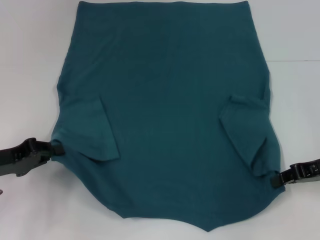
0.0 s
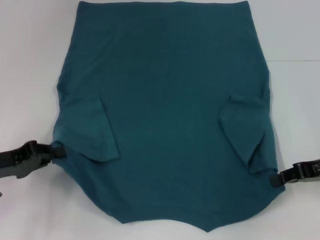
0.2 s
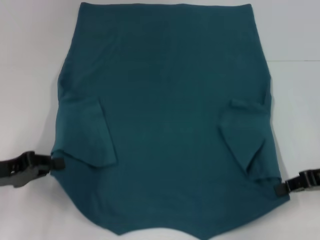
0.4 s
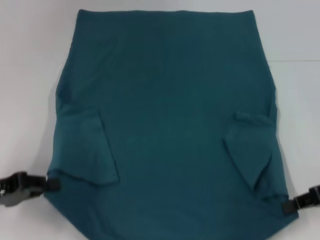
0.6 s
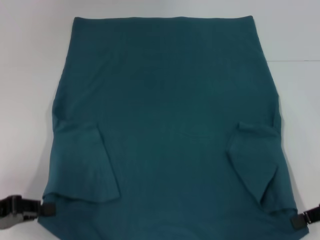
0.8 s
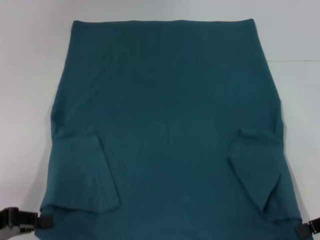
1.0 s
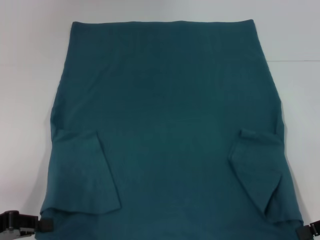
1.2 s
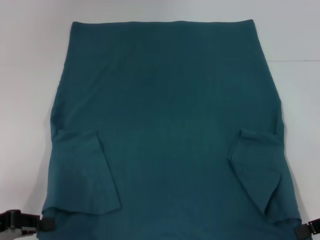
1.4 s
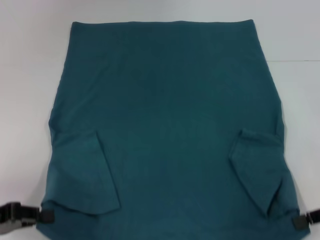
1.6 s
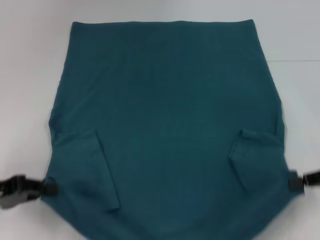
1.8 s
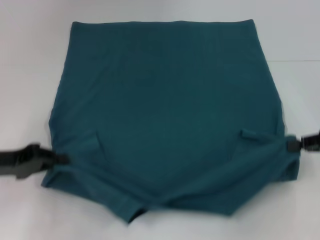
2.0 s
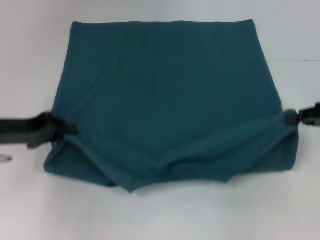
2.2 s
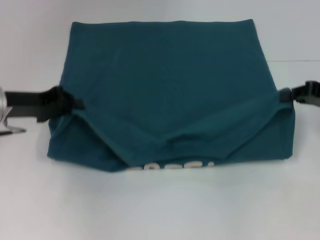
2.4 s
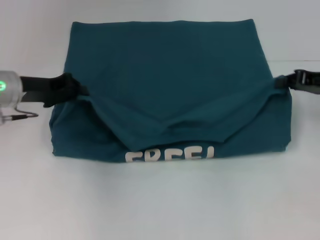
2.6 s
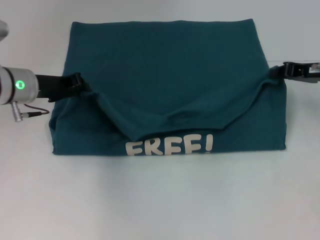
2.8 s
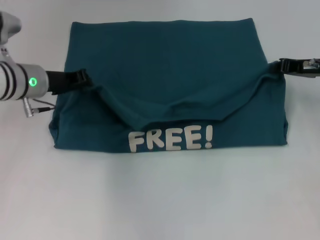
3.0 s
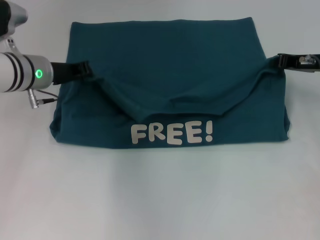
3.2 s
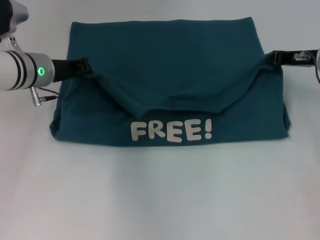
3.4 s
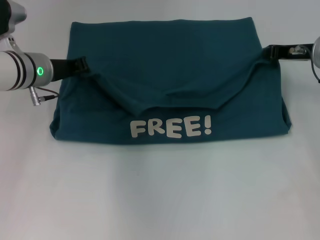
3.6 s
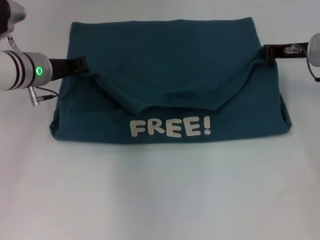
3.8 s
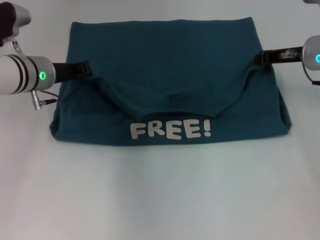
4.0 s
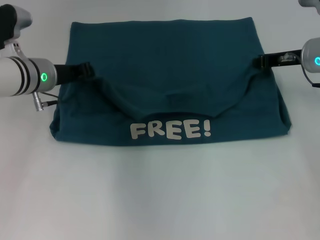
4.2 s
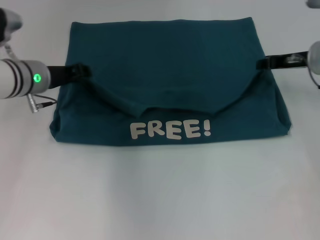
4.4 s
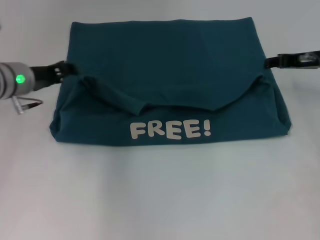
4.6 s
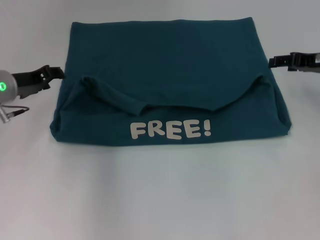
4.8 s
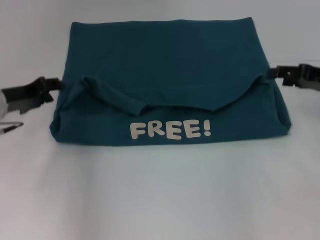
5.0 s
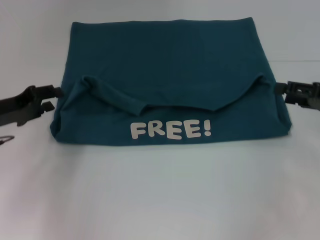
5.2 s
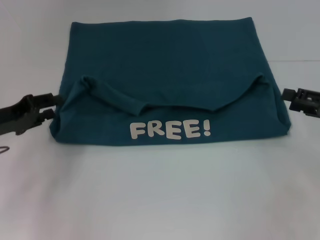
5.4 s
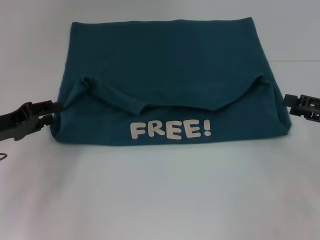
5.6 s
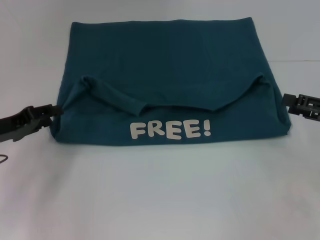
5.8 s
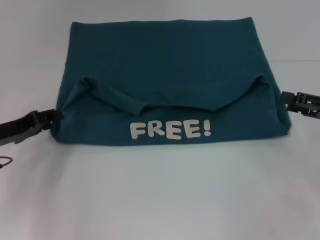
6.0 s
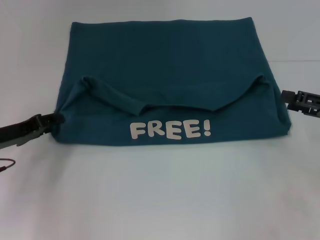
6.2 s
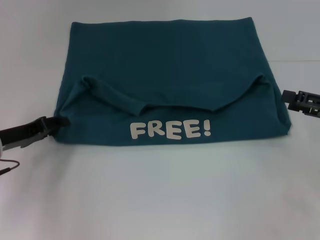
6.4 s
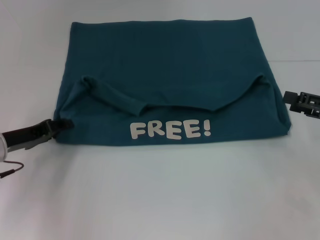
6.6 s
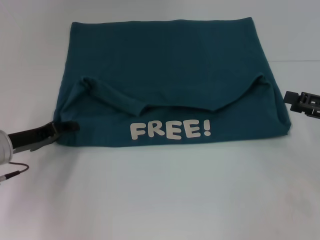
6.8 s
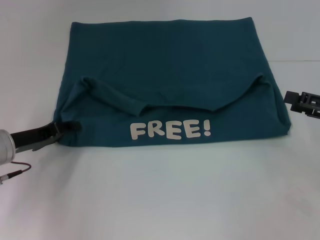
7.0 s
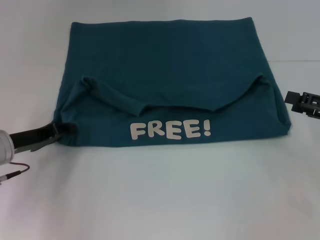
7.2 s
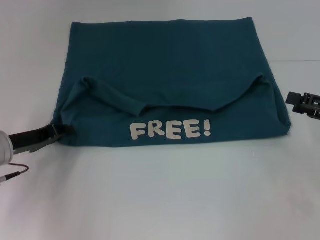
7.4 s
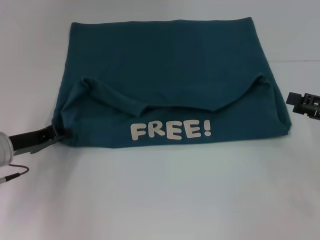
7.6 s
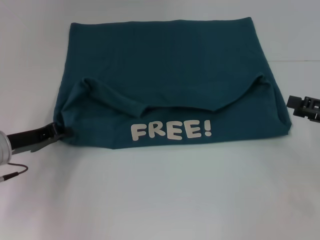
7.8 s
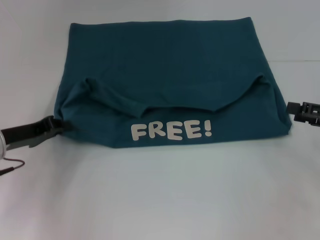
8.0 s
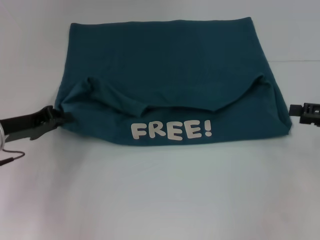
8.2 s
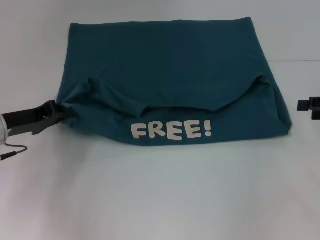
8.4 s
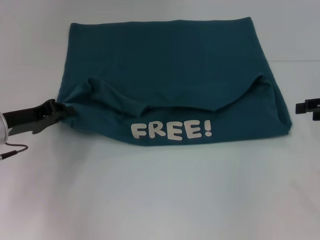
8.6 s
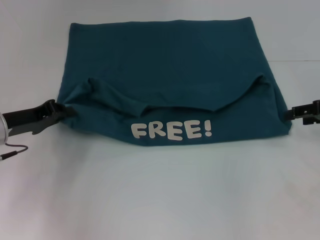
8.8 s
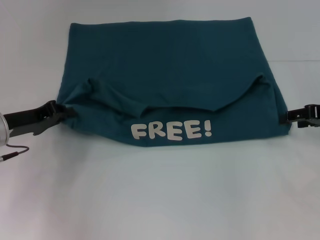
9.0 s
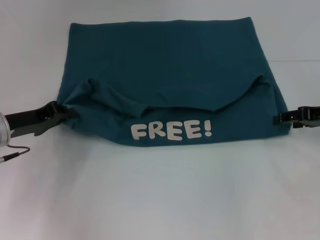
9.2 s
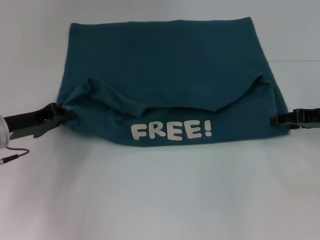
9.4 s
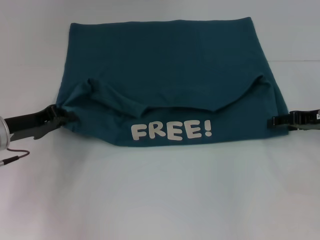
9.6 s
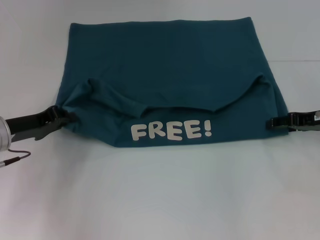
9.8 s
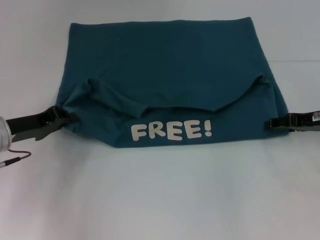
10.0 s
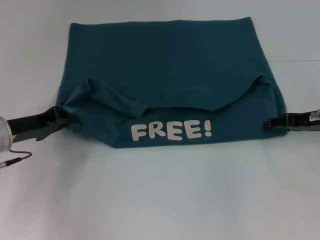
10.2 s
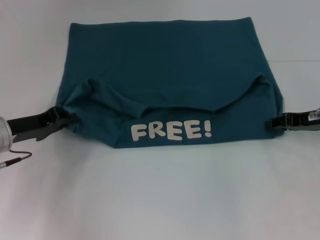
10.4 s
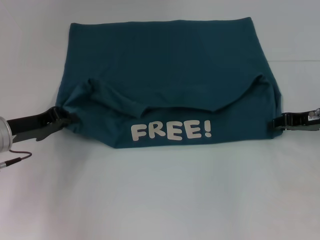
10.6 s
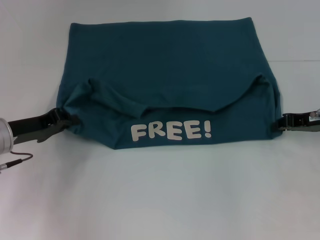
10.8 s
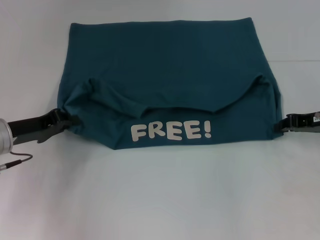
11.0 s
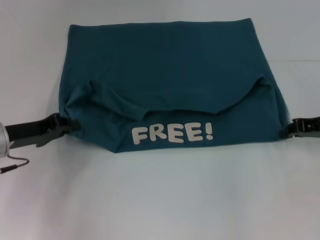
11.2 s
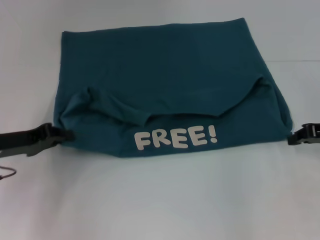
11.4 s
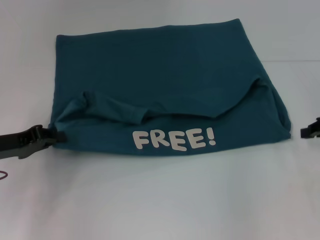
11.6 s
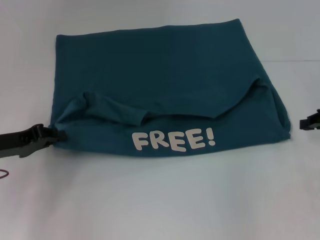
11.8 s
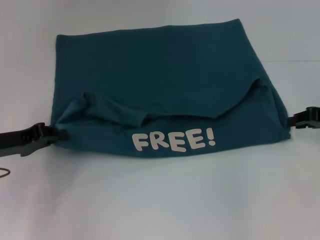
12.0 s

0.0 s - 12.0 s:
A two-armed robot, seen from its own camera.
Step, 0.2 s - 4.6 s: Fold the clothes to the left.
Step, 0.2 s - 4.6 s: Fold the clothes to the right.
0.0 s - 1.6 s: The grippers both shift backward by roughly 5 cm.
1.6 s - 3.0 s: The left gripper travels forward and to the right by about 25 cm, while the right gripper travels forward by roughly 15 cm.
3.0 s - 4.4 s: The grippers move only a little.
4.4 s - 6.0 s: The right gripper is displaced backward and to the right by approximately 15 cm, and opens up. Meanwhile the left gripper goes approximately 15 cm backward and to the left.
6.0 s - 7.6 s: The left gripper closes.
7.6 s - 9.0 s: The right gripper shifts approximately 5 cm forward.
9.0 s - 10.4 s: The grippers move only a little.
10.4 s - 12.0 s: The right gripper closes up.

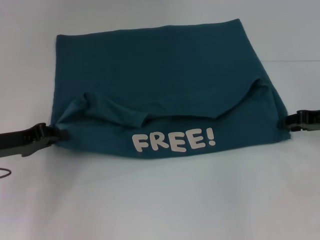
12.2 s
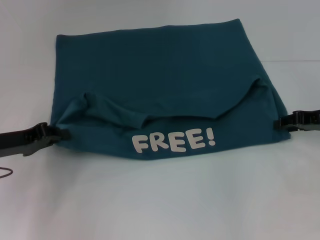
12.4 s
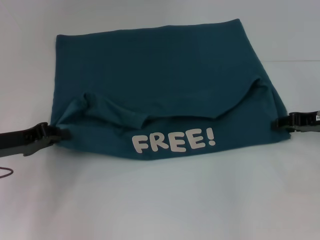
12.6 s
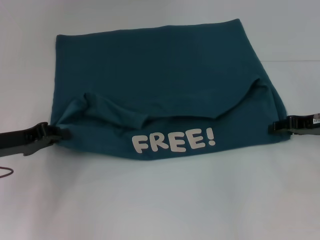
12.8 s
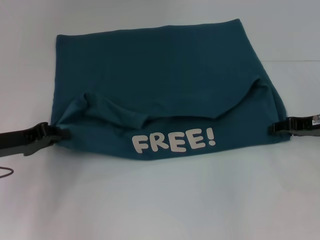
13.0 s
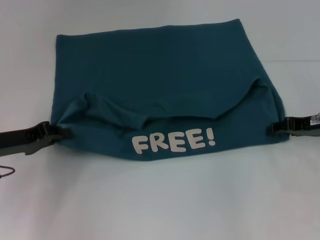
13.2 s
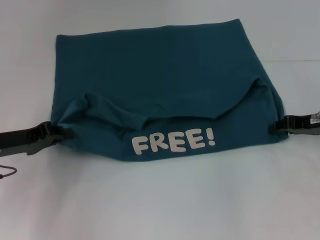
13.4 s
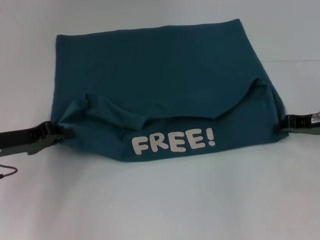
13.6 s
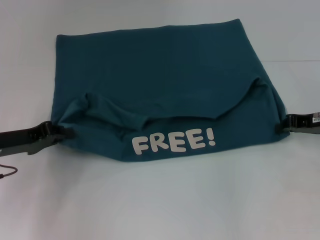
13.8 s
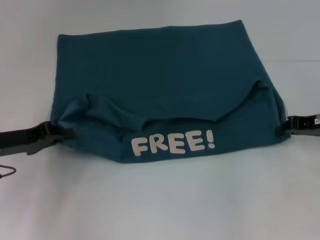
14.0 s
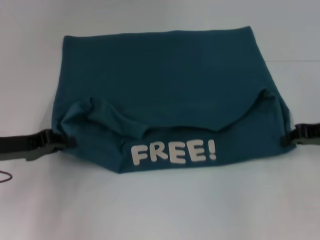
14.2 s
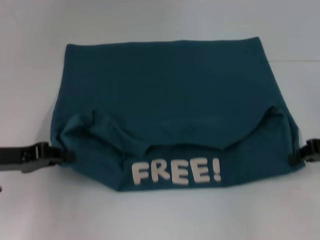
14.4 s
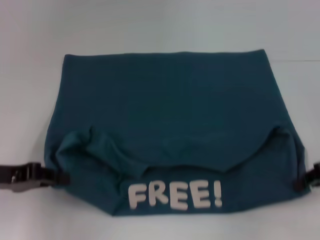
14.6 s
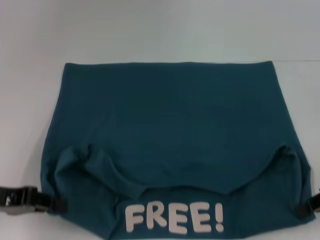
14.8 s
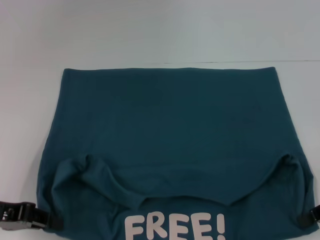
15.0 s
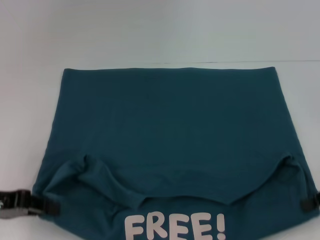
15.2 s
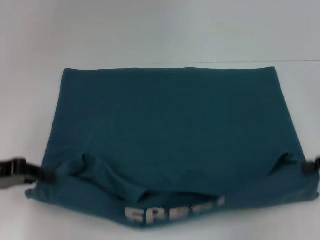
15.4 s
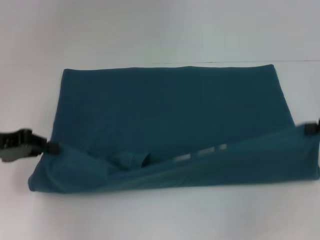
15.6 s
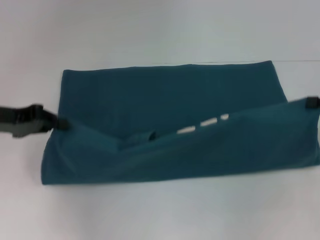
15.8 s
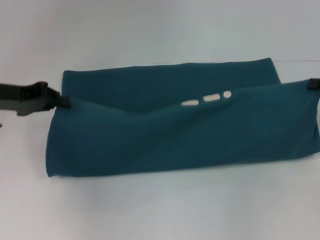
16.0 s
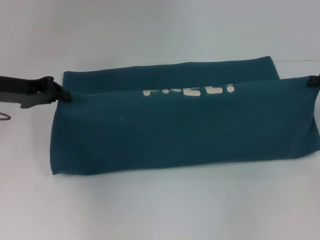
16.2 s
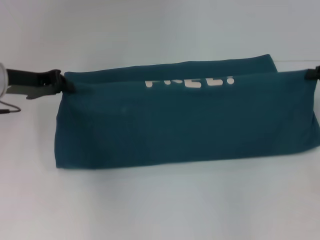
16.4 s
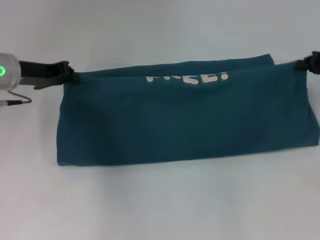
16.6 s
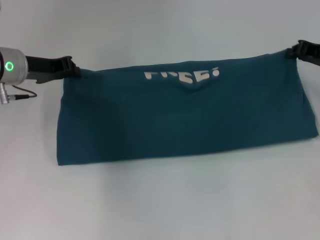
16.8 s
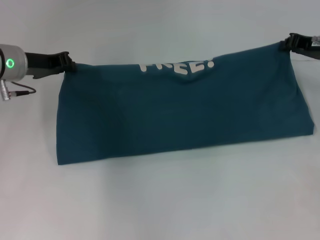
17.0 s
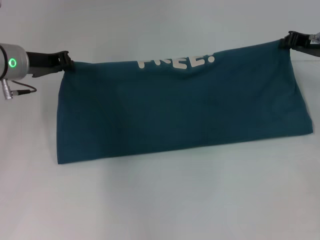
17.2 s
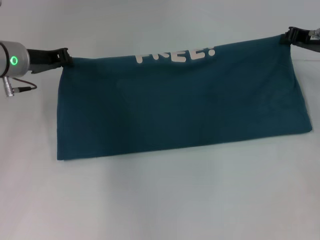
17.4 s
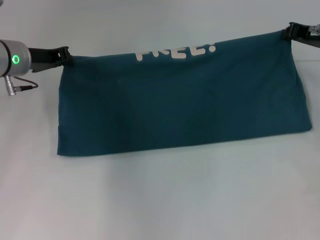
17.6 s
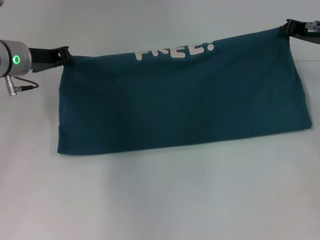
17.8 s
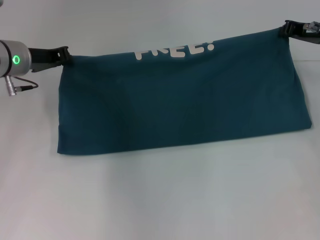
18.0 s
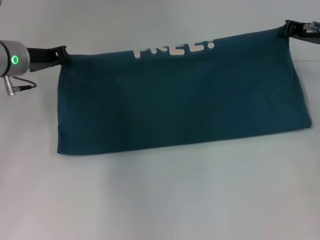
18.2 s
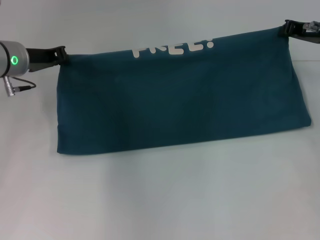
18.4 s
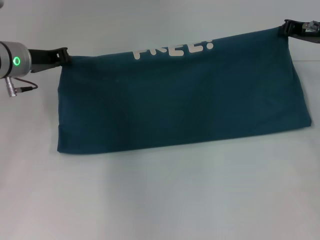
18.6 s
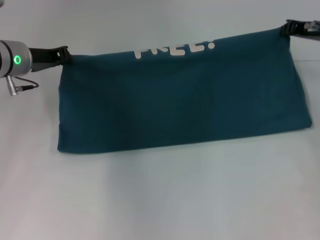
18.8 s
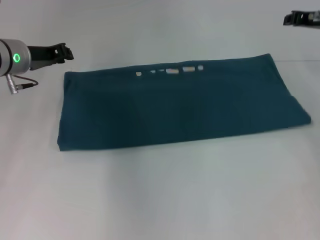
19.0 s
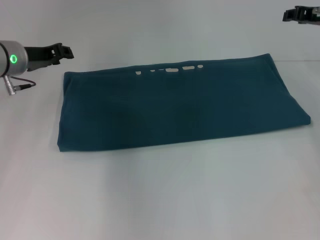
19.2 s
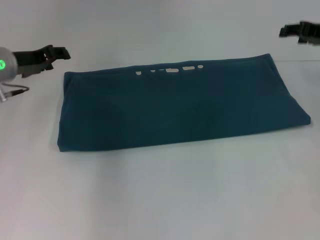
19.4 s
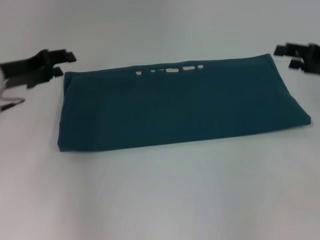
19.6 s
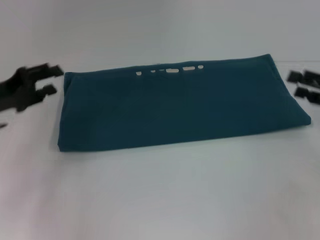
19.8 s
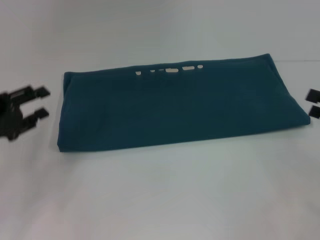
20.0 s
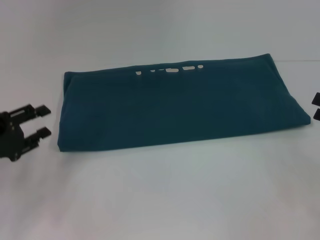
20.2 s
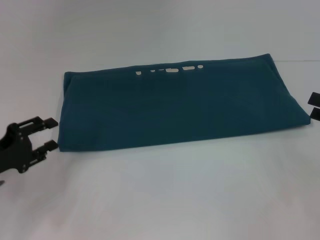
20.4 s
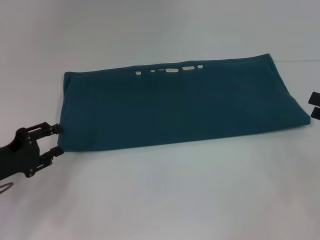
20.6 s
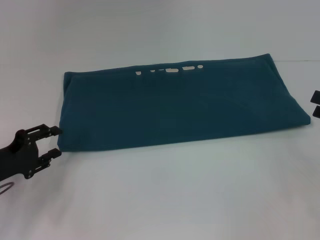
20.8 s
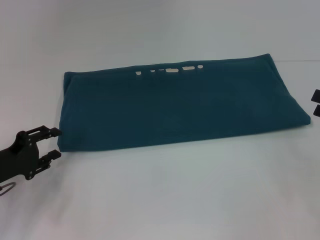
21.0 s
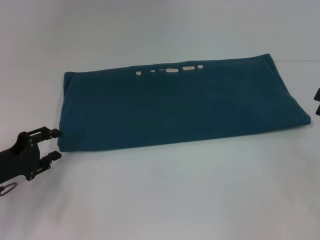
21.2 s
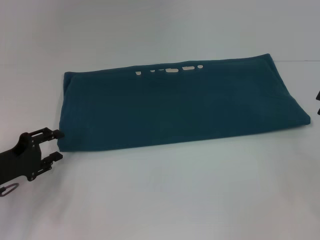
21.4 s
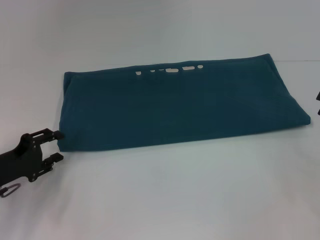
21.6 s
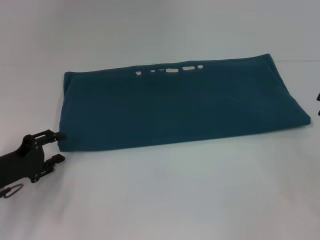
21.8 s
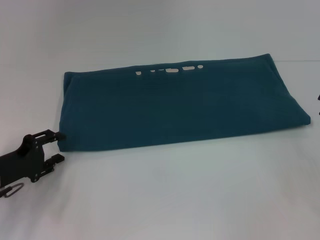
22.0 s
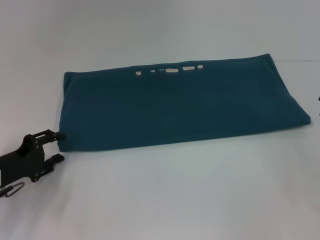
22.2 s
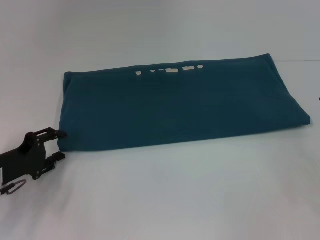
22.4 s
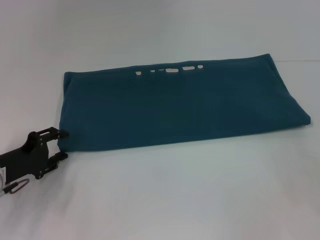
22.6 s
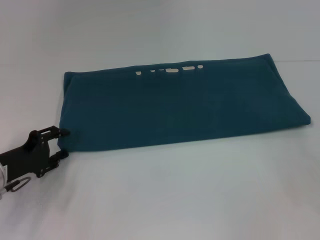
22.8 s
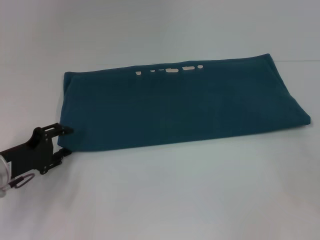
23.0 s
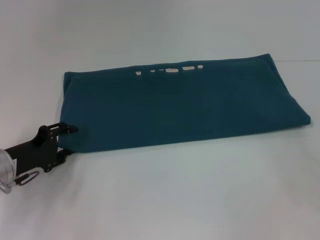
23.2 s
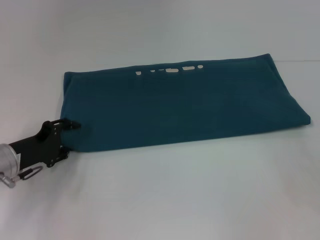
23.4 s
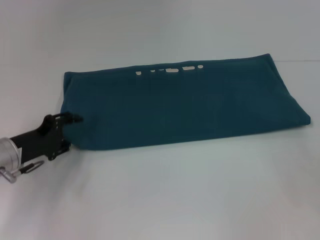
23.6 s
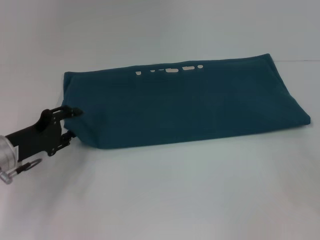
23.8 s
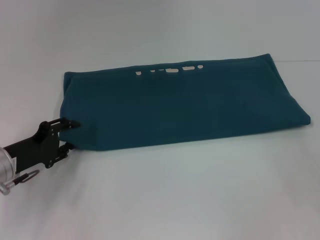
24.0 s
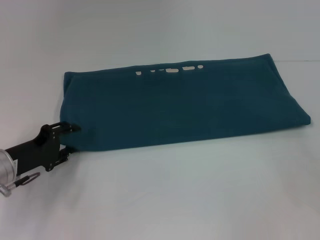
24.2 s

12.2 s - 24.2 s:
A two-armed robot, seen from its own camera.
Step, 12.2 s - 14.8 s: Pull the clothes with your left hand.
Step, 12.2 s - 14.8 s: Pull the clothes with your right hand.
Step, 15.0 s - 19.2 s: Fold the clothes to the right.
12.2 s - 13.8 s: The grippers move only a little.
13.8 s - 15.2 s: The two grippers go some 10 cm backward.
15.2 s - 16.6 s: The two grippers go about 15 cm forward.
16.6 s - 18.2 s: The right gripper shifts roughly 5 cm forward and to the left.
18.2 s - 19.8 s: The right gripper shifts approximately 15 cm backward and to the right, and opens its fingers; the left gripper heads backward and to the left, covering some 10 cm, and opens up.
19.8 s - 21.2 s: The right gripper ends up about 5 cm from where it was; the left gripper shifts some 10 cm downward and backward.
21.2 s - 24.2 s: The grippers make only small movements.
